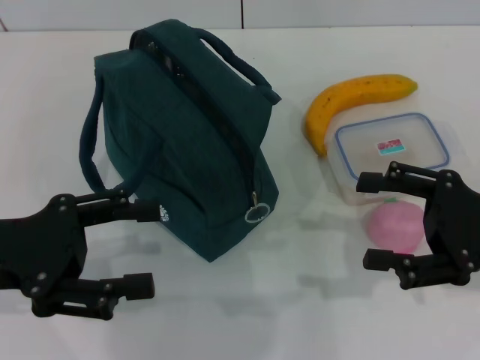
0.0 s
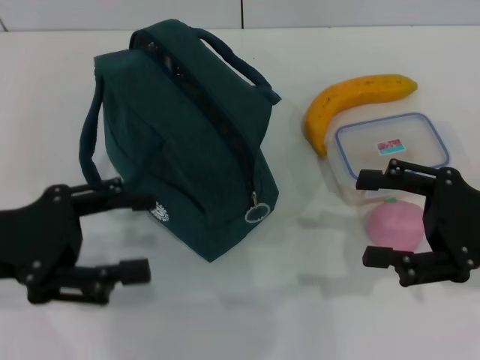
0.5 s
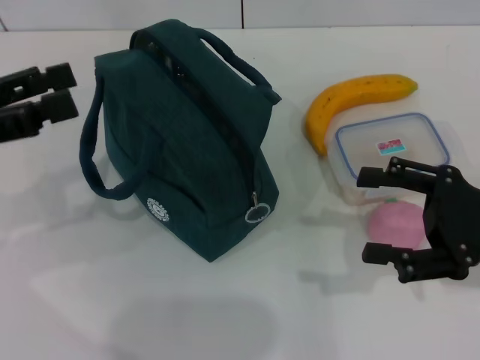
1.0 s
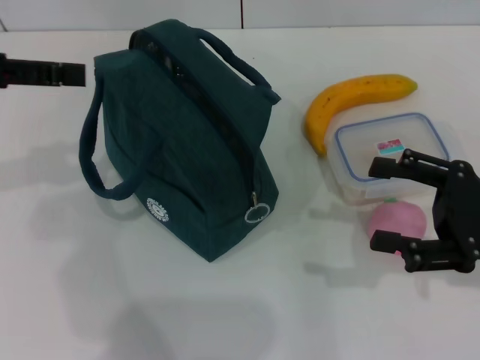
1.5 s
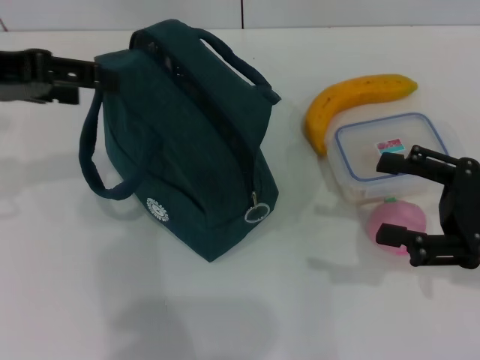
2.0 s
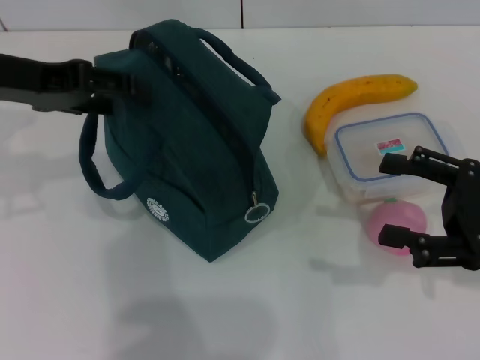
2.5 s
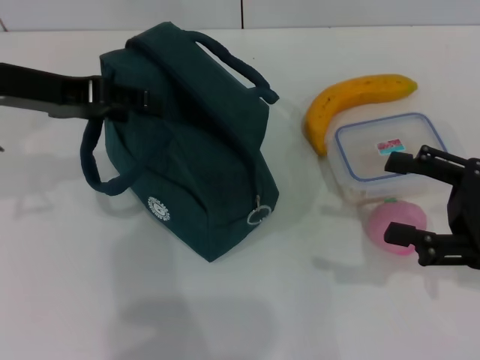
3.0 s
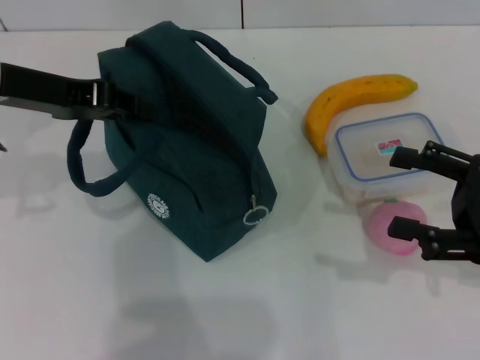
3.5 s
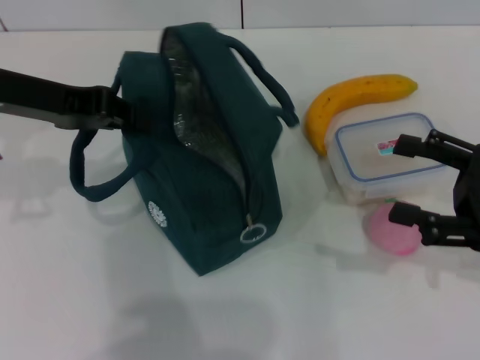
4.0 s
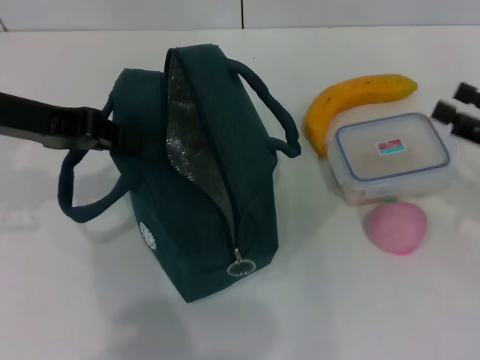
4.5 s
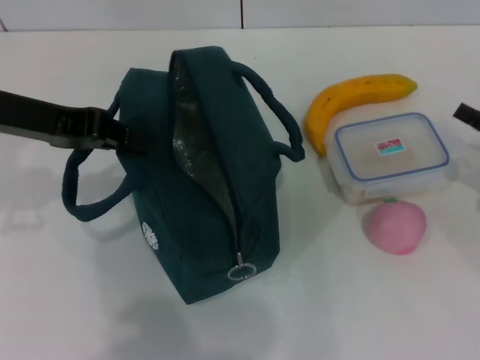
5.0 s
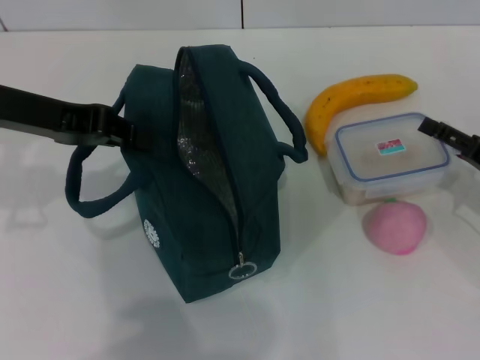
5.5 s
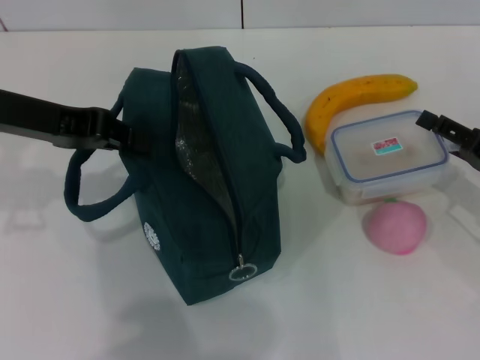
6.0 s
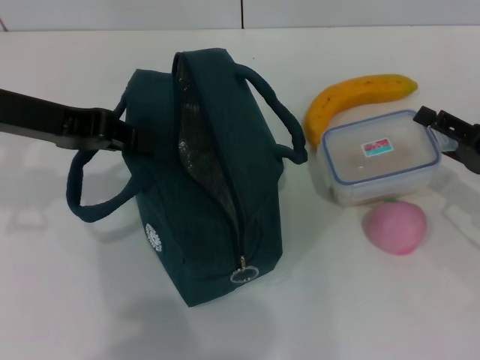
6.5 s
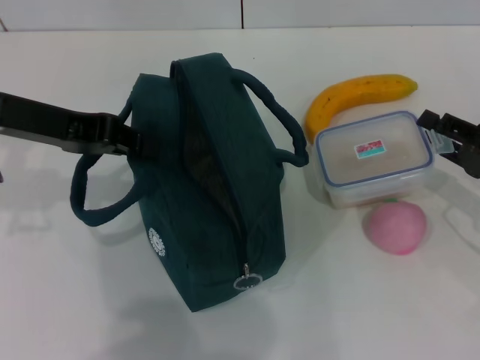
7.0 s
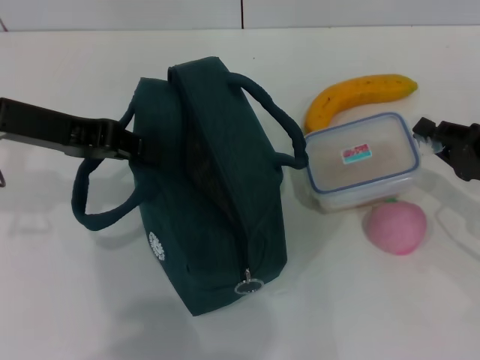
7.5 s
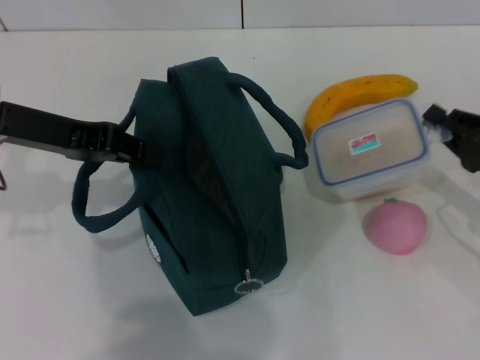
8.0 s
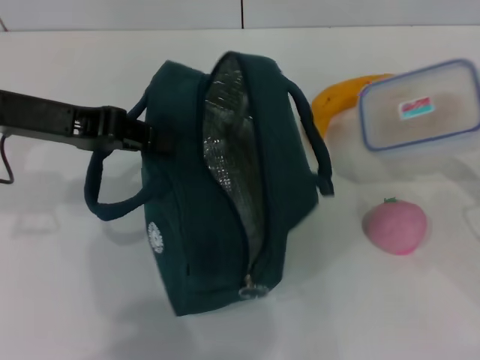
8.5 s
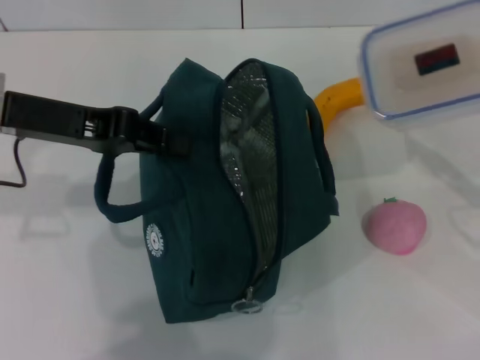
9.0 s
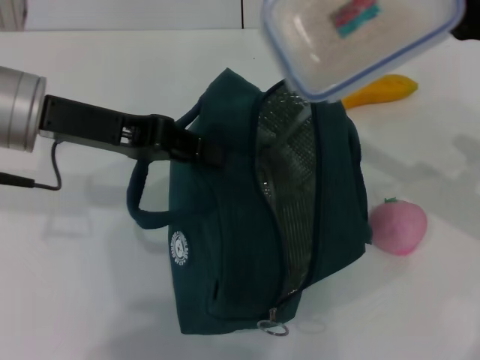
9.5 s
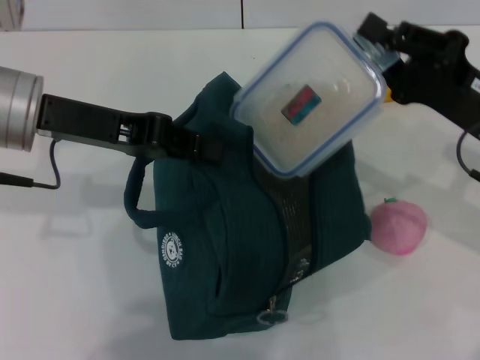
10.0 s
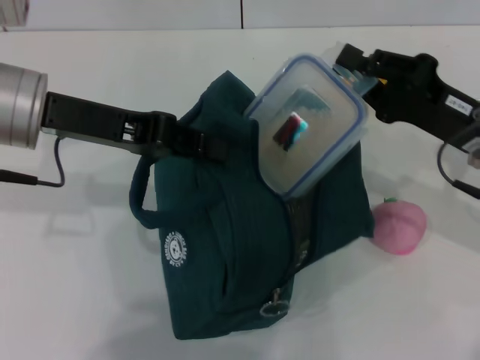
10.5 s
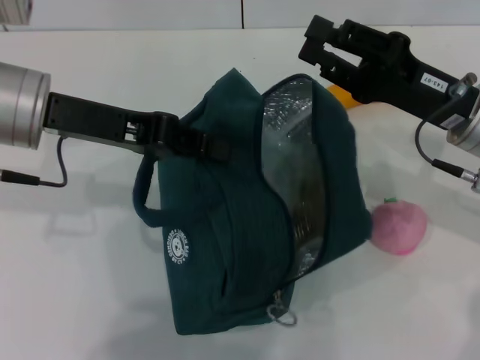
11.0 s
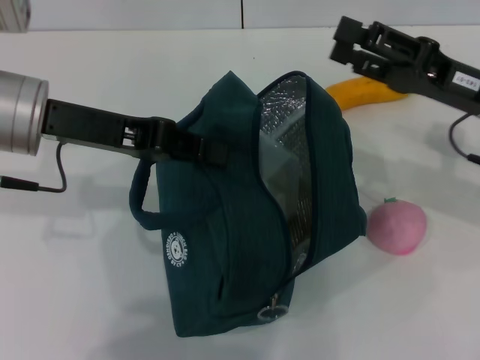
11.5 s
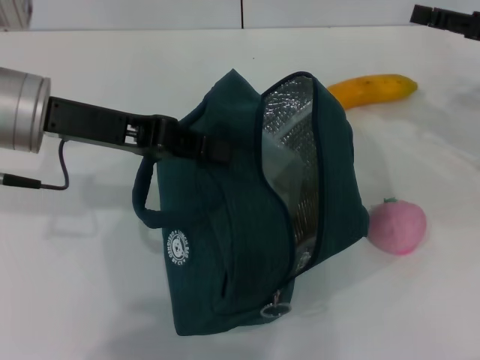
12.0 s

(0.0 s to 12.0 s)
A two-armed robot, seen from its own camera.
Step, 0.0 s - 4.0 s: Hold the lunch bag with your left hand.
Step, 4.5 s - 7.0 s: Pick up the lunch box with your right hand.
Step, 8.0 s - 11.0 s: Place the lunch box into the lunch bag with your right hand.
0.0 s - 2.0 s: The left gripper moves upward and forward, roughly 15 cm.
2.0 s - 4.0 s: The left gripper shifts by some 5 cm, and closes its fingers.
4.0 s - 6.0 s: The right gripper goes roughly 5 cm downward.
6.0 s - 8.0 s: The right gripper closes up.
8.0 s - 10.0 s: The right gripper is displaced to the left and upward by approximately 10 cm.
10.0 s - 12.0 s: The right gripper heads to the right and forward, covering some 10 cm, and opens.

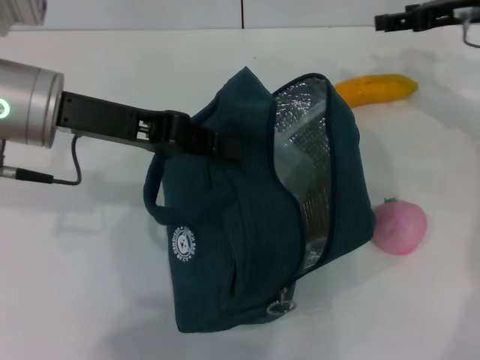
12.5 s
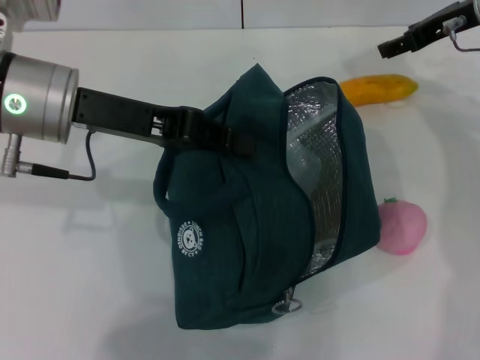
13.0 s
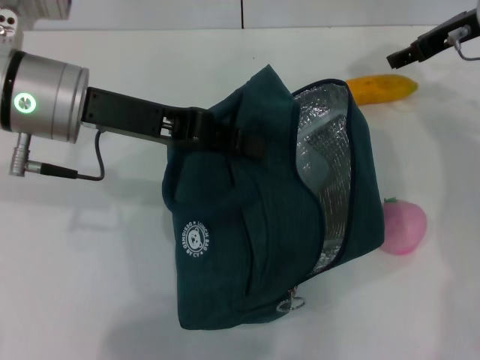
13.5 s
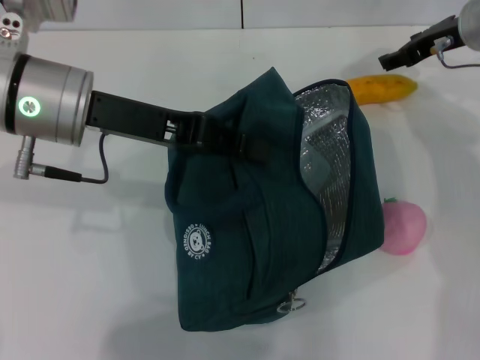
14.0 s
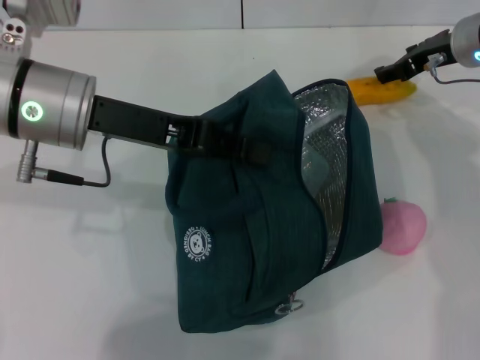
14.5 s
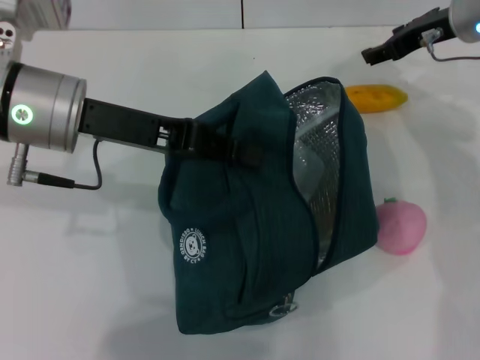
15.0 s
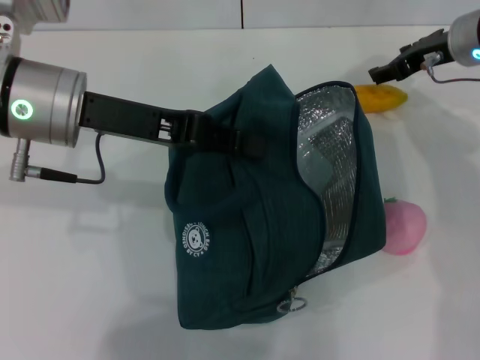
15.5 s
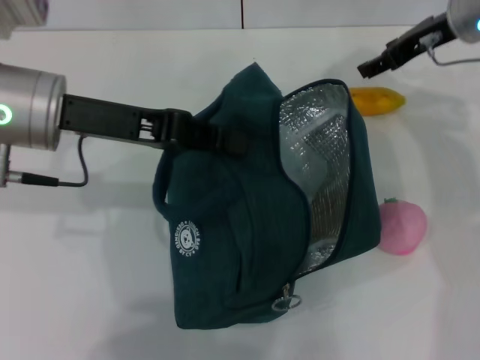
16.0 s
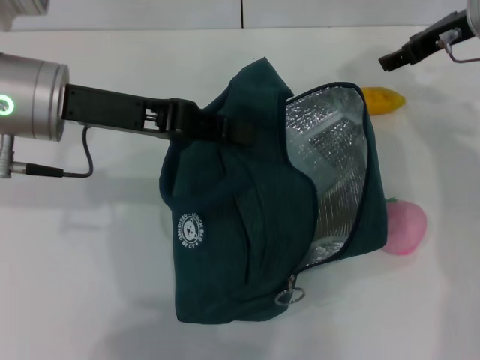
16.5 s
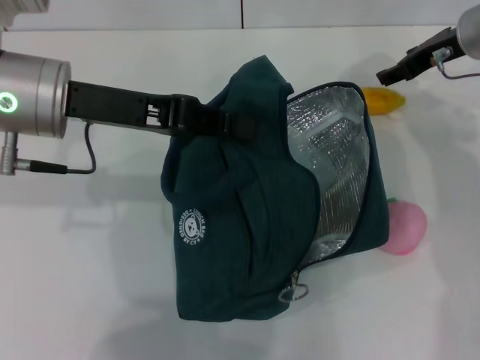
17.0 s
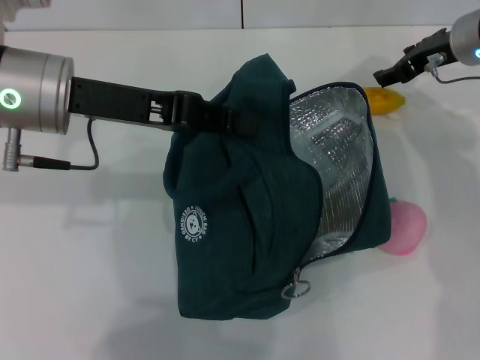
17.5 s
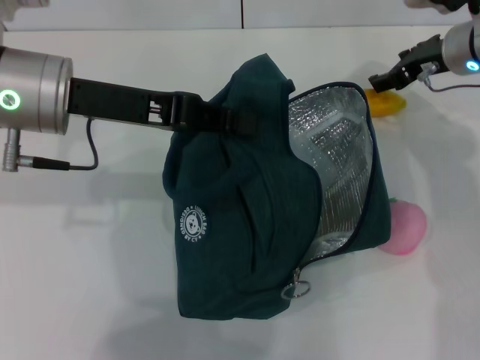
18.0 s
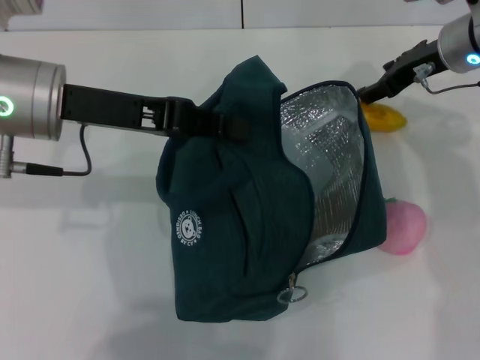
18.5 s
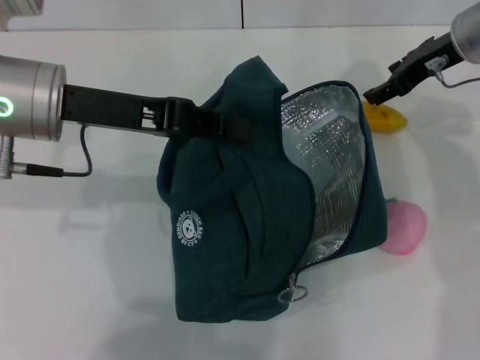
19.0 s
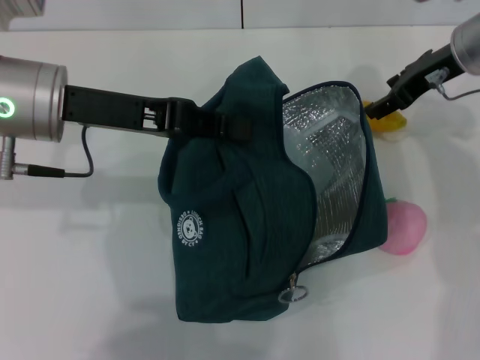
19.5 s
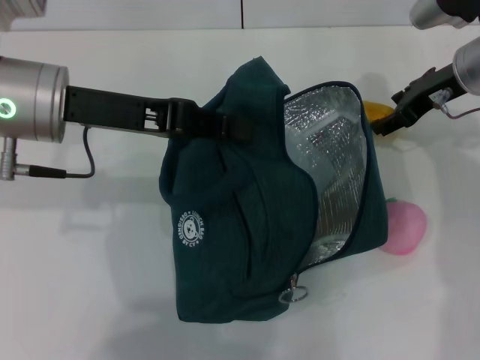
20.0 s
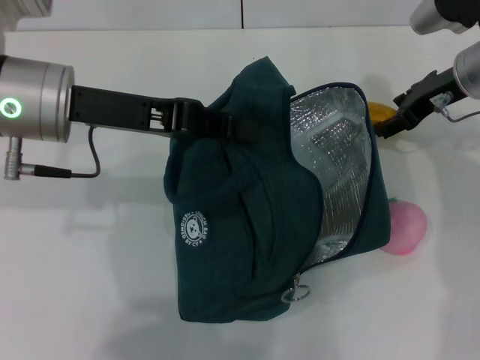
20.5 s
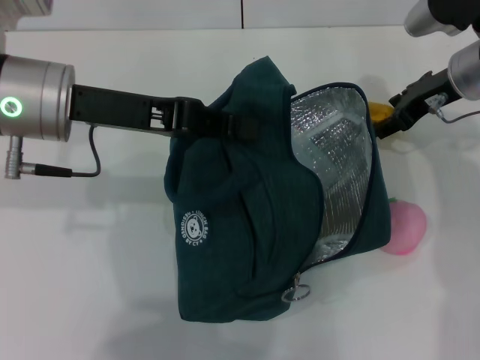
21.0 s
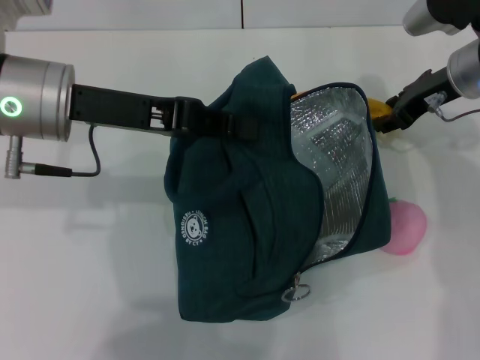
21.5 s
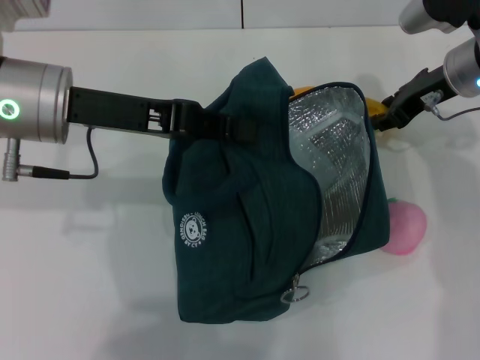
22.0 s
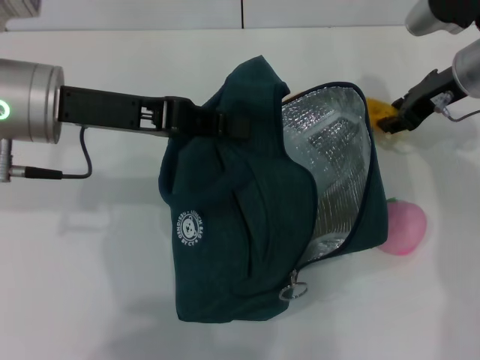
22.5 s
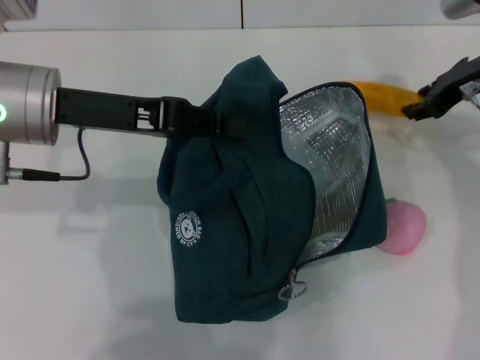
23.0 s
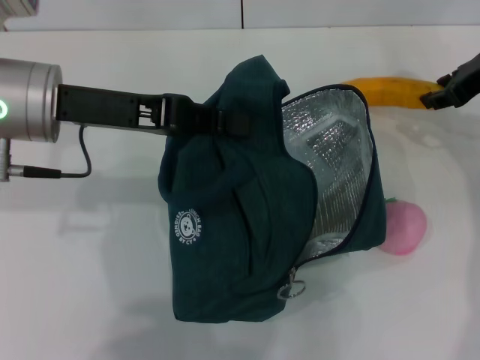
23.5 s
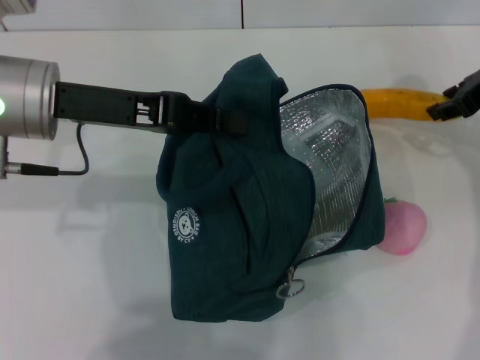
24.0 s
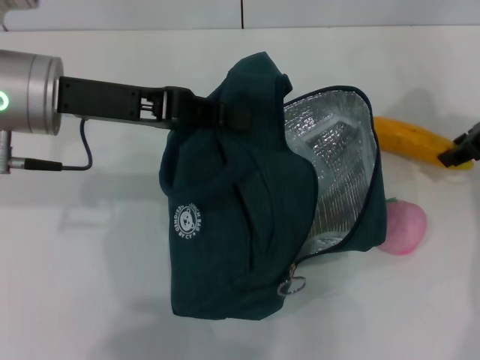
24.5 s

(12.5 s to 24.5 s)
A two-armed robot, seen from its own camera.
12.5 s - 14.5 s: The right gripper moves about 5 cm.
16.5 s - 20.5 s: The grippers stay close to where they were, moving slightly.
20.5 s - 22.5 s: The right gripper closes its fingers.
22.5 s - 24.5 s: The right gripper travels to the right by about 5 cm.

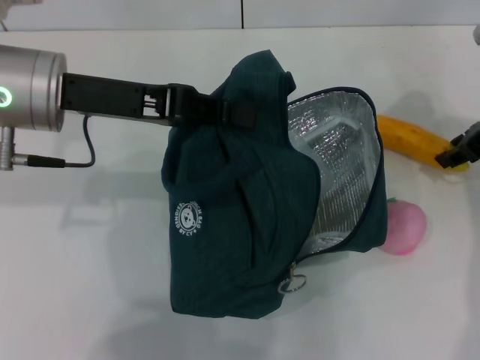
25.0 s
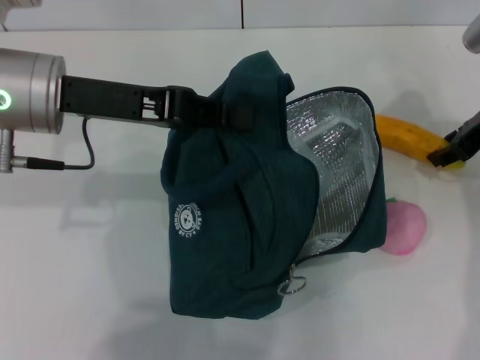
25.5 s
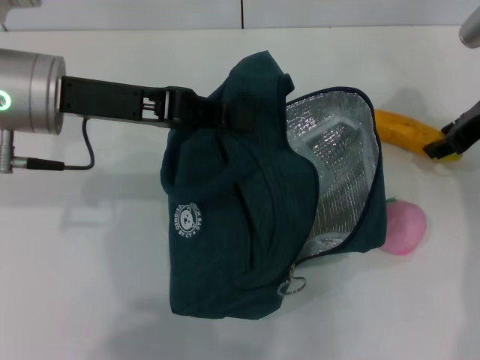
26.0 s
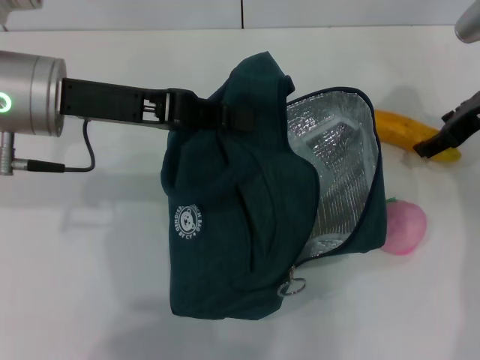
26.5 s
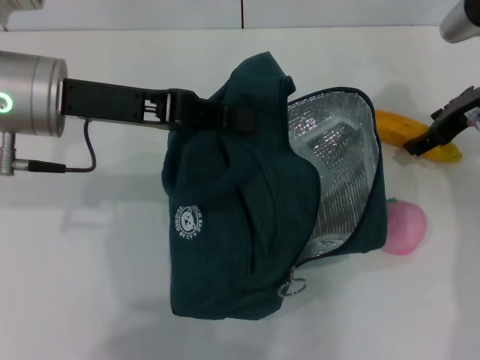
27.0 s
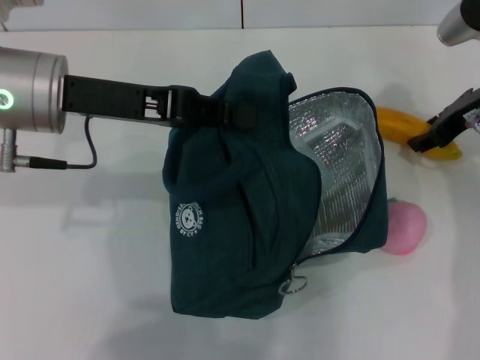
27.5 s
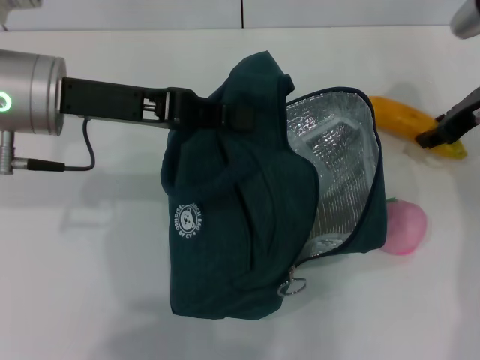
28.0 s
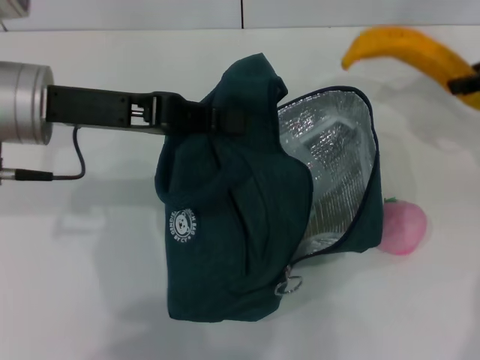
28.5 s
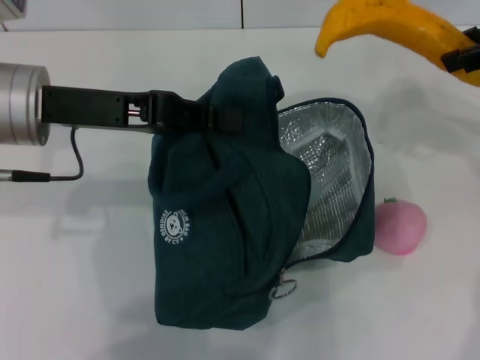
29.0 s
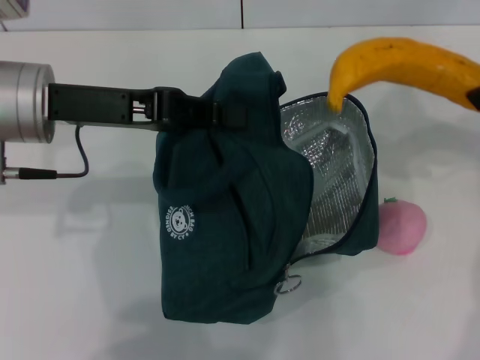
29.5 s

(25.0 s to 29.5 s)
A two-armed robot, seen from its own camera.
Step, 25.0 s - 27.5 s: Take the banana with your right hand.
25.0 s - 27.0 s: The right gripper opens.
27.0 s - 29.5 s: The right gripper heads upward and backward, covering some 20 cm, and closes its fingers.
